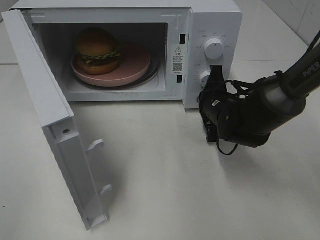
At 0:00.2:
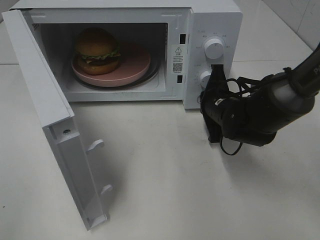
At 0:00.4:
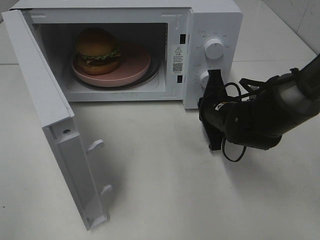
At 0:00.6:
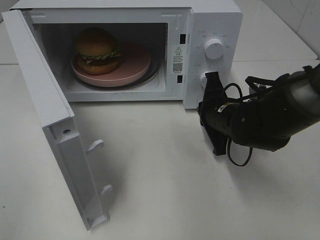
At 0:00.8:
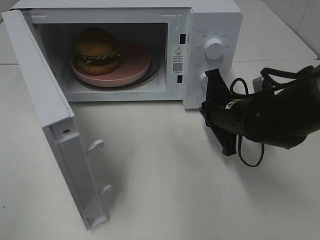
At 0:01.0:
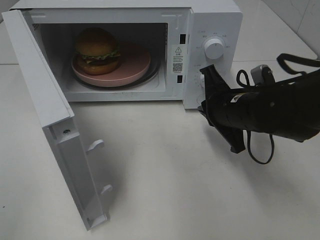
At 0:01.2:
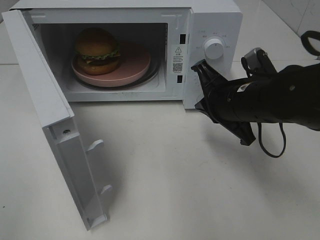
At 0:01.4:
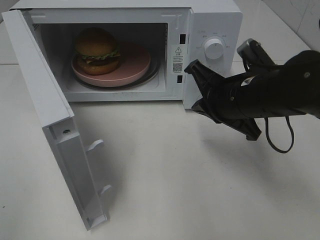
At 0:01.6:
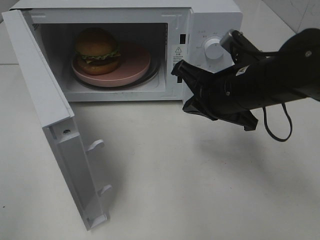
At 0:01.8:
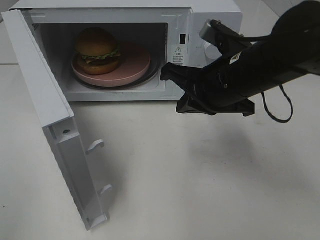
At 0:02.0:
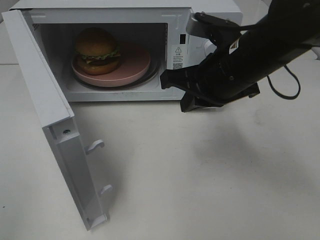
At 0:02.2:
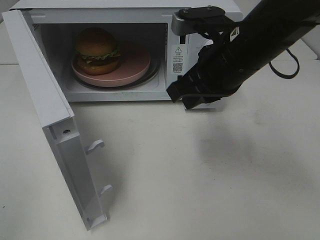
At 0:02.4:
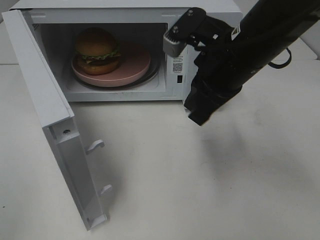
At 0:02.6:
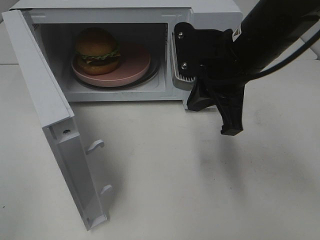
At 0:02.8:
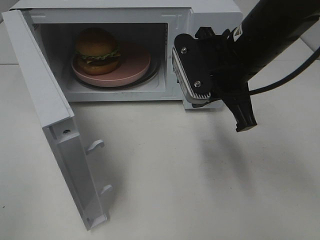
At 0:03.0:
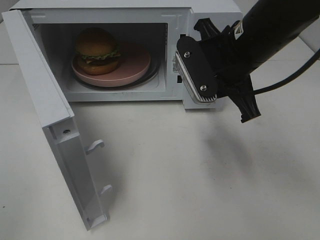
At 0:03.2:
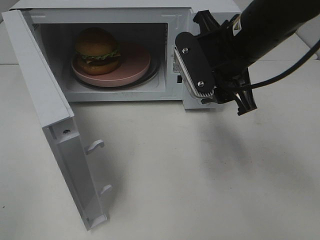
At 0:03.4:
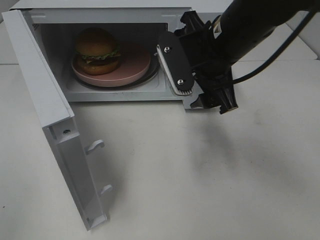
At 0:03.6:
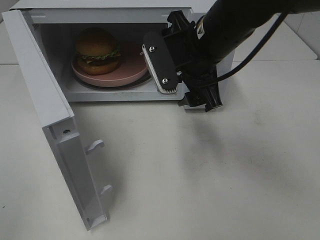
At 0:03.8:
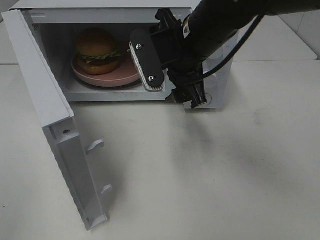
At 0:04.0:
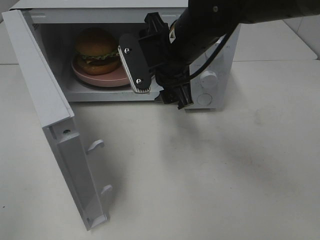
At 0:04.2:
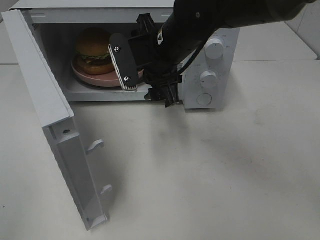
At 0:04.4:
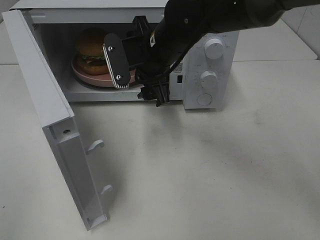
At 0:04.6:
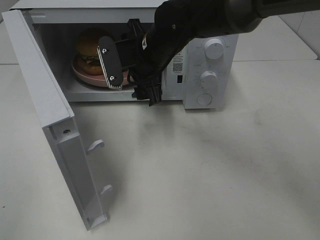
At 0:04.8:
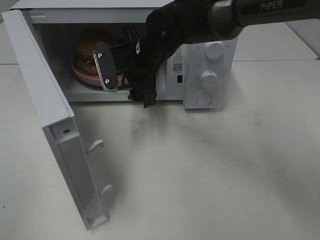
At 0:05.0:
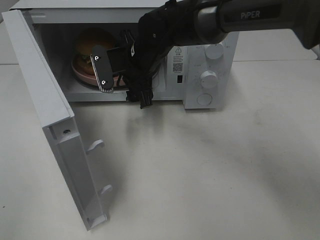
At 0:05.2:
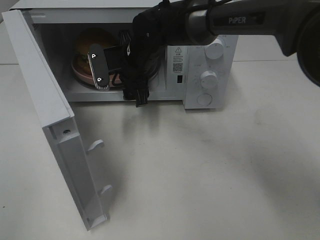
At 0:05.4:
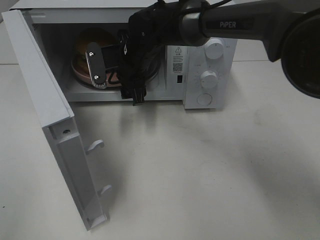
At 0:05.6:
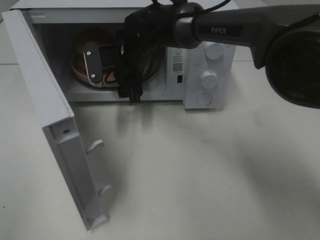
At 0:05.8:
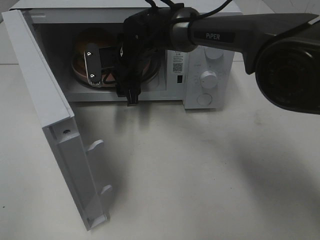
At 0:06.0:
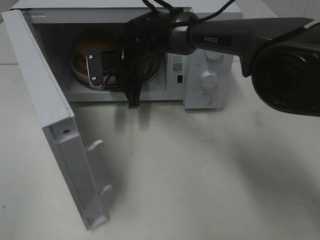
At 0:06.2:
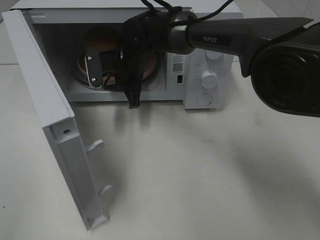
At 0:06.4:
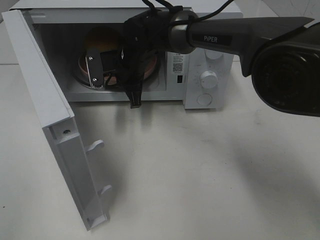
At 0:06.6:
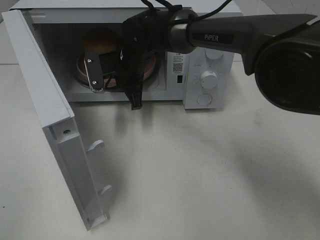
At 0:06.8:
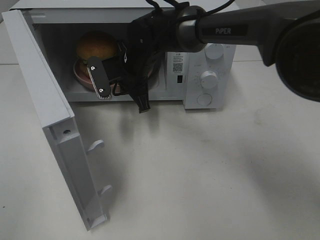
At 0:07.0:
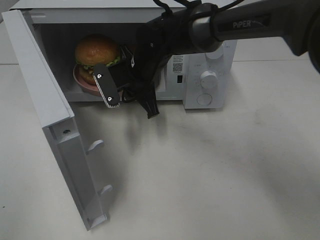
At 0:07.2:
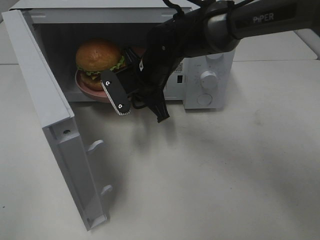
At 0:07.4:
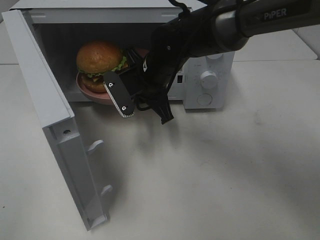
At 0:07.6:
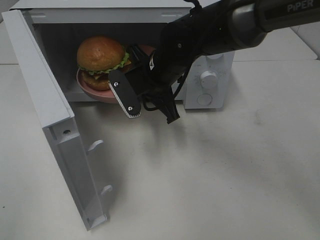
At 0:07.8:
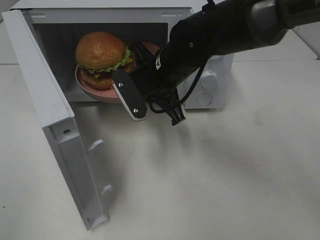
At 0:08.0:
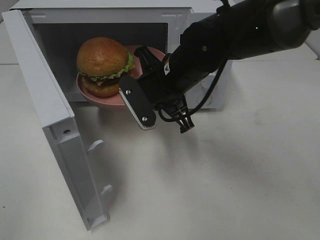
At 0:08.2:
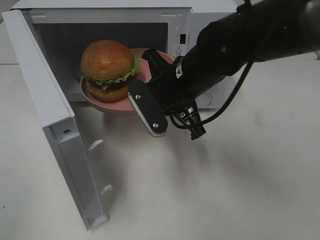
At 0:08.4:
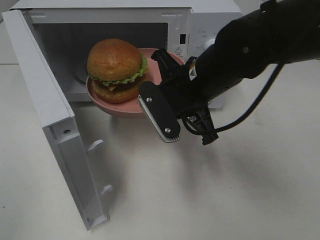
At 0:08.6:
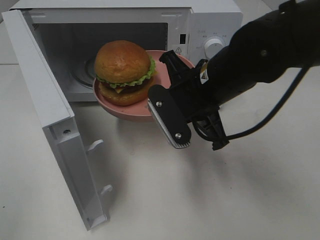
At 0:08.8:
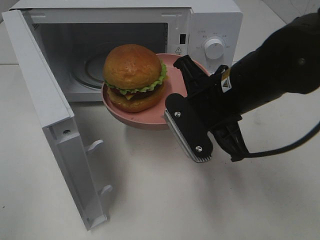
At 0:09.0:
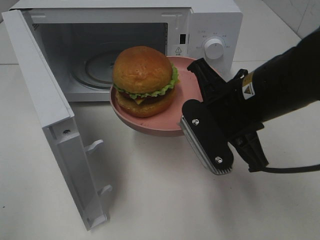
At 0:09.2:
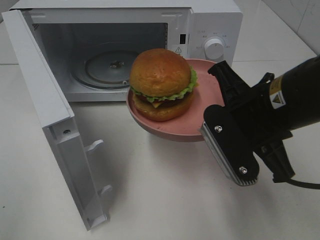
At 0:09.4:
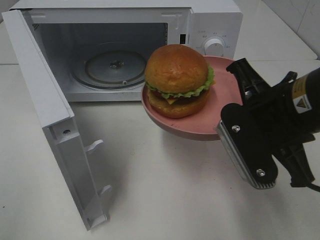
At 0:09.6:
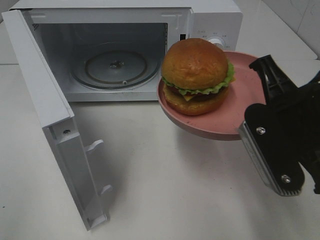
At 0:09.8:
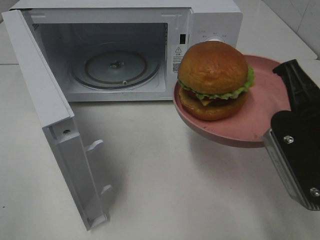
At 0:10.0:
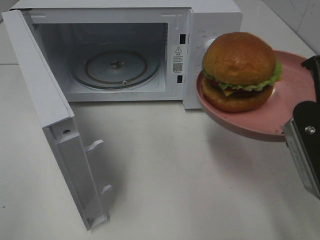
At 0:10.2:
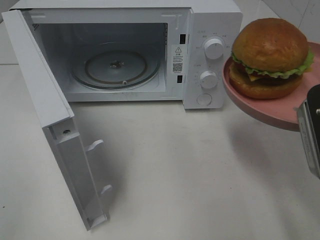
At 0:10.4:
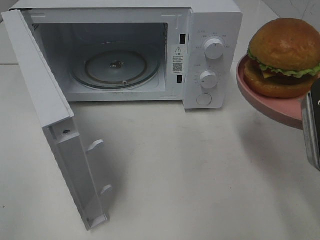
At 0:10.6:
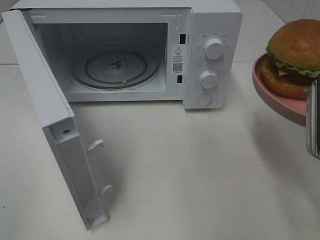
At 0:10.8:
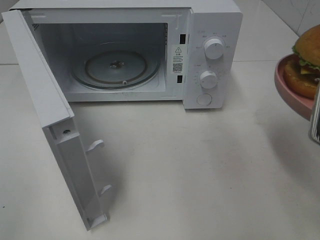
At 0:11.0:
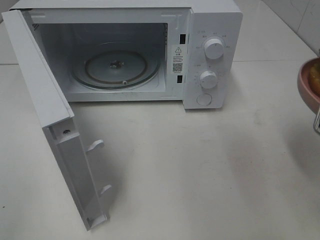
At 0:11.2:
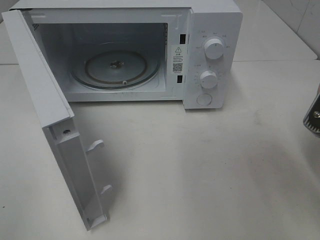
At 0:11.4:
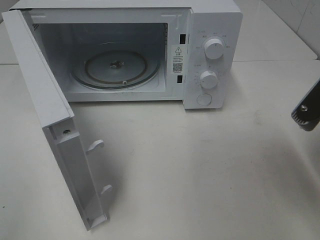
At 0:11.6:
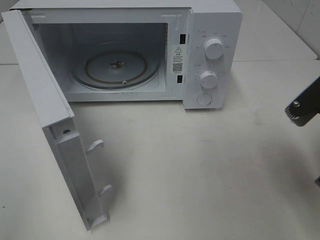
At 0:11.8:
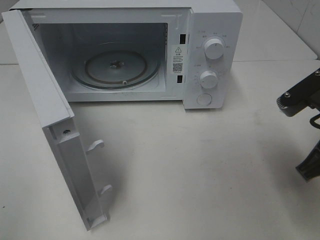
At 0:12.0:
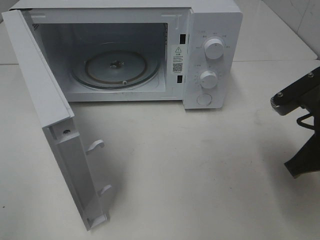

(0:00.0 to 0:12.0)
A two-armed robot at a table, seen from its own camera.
Task of the whole recording: Heat the burger.
Step, 0:00.6 - 0:06.2: Right hand: grab the plate with the hamburger.
0:00.0 - 0:01.6: The right gripper heads upward and backward, covering approximately 15 cm.
0:01.6 - 0:03.0: The right gripper heads upward, covering about 5 cm, and opens up.
0:03.0 - 0:04.4: The right gripper shifts roughly 15 cm to the left and forward, and opens up.
0:04.4 - 0:06.0: The right gripper goes roughly 10 cm forward, downward and to the left, and closes.
0:06.0 - 0:07.6: The right gripper heads backward and to the right, covering roughly 10 cm.
0:07.6 - 0:09.0: The right gripper moves backward and to the right, roughly 15 cm.
0:09.0 - 0:10.4: The right gripper goes roughly 15 cm to the right and backward.
0:10.4 - 0:12.0: The right gripper heads downward, covering about 5 cm.

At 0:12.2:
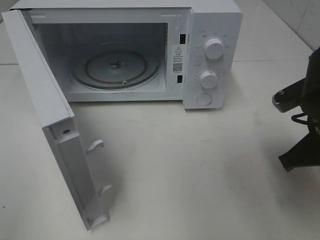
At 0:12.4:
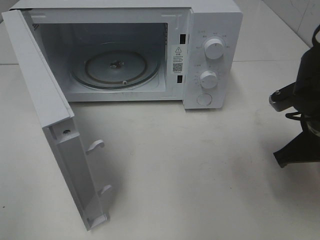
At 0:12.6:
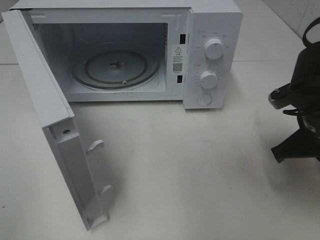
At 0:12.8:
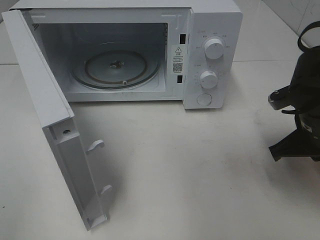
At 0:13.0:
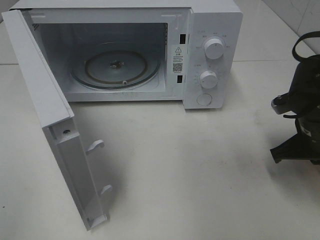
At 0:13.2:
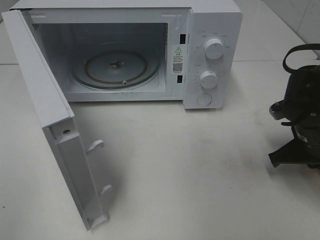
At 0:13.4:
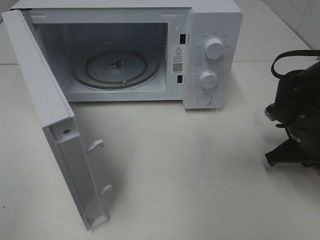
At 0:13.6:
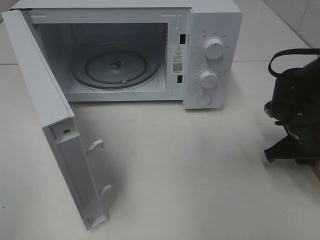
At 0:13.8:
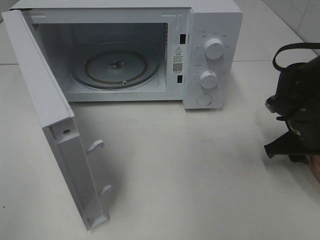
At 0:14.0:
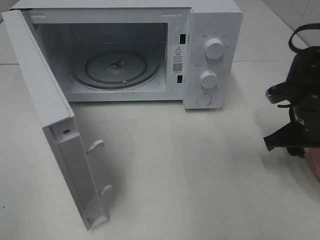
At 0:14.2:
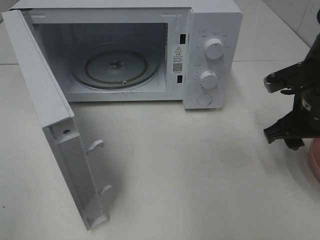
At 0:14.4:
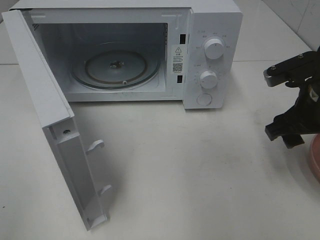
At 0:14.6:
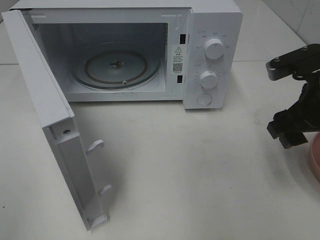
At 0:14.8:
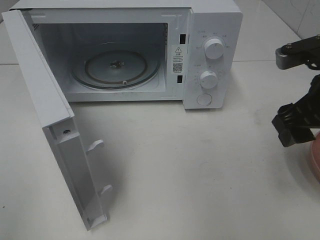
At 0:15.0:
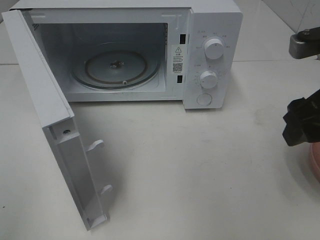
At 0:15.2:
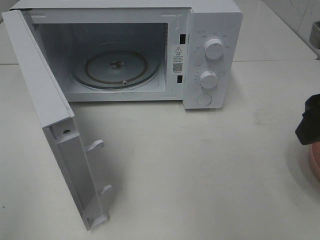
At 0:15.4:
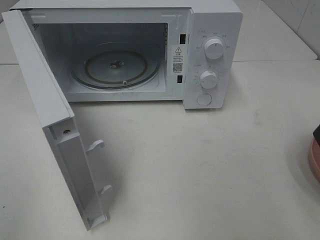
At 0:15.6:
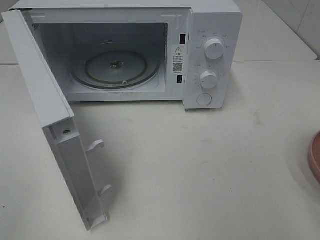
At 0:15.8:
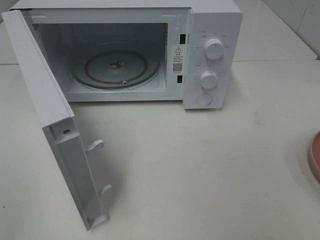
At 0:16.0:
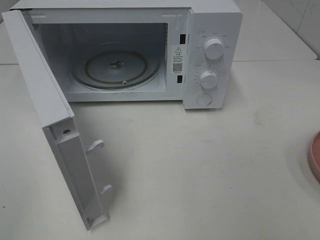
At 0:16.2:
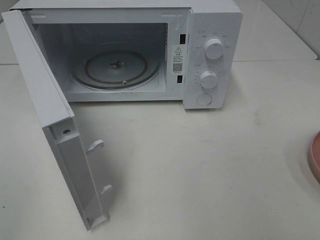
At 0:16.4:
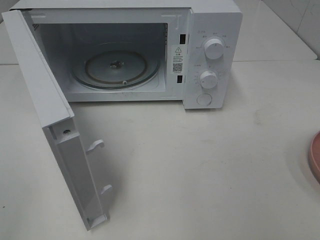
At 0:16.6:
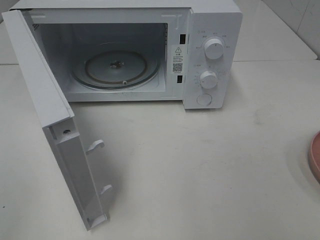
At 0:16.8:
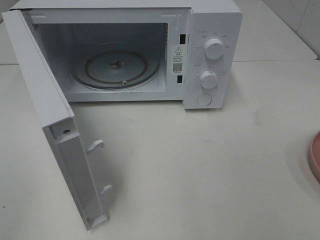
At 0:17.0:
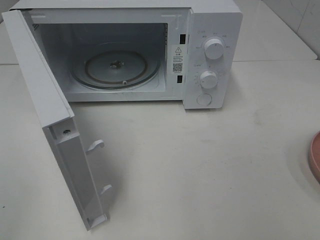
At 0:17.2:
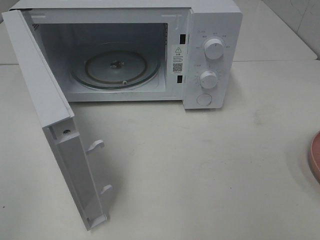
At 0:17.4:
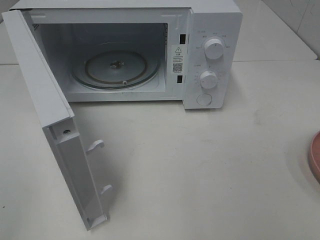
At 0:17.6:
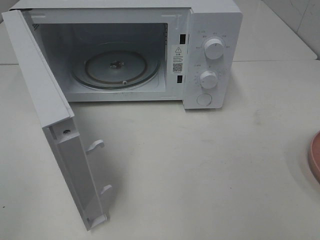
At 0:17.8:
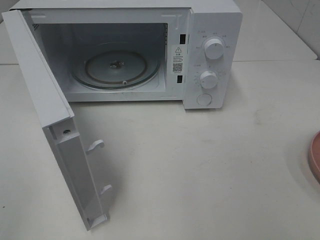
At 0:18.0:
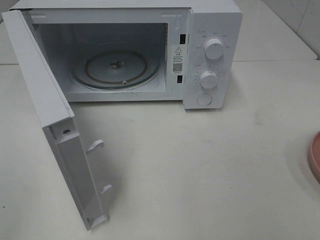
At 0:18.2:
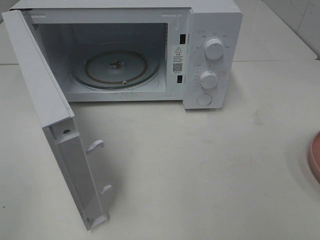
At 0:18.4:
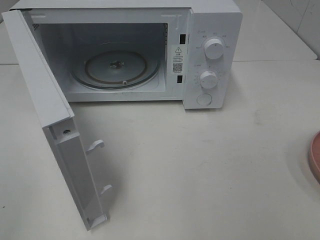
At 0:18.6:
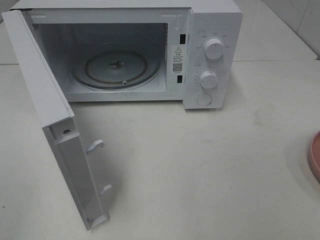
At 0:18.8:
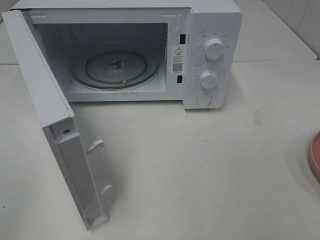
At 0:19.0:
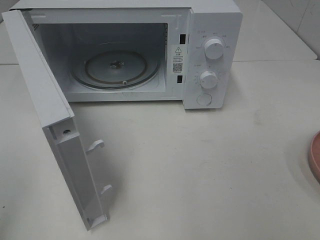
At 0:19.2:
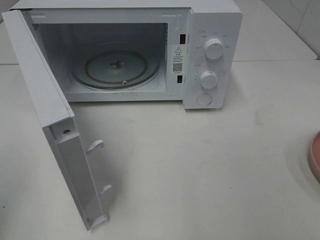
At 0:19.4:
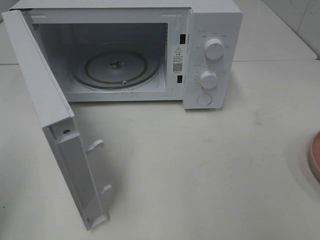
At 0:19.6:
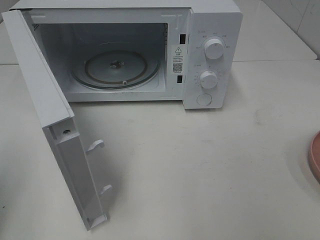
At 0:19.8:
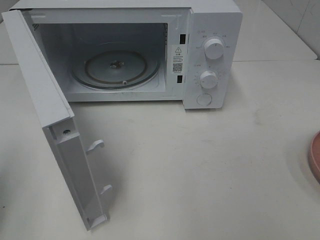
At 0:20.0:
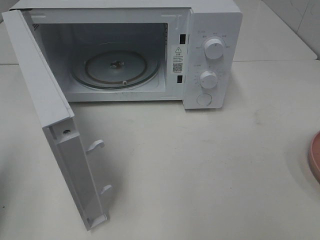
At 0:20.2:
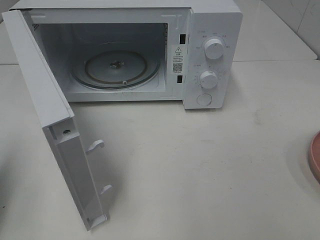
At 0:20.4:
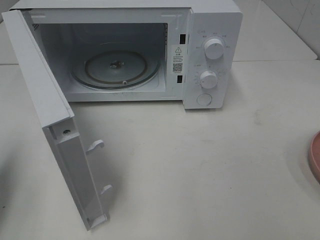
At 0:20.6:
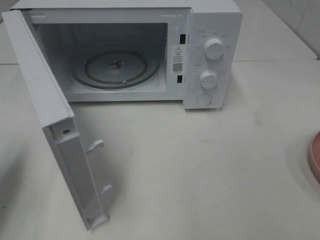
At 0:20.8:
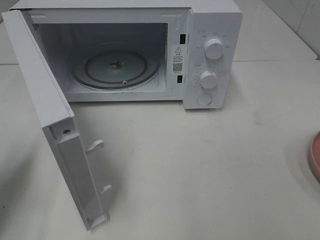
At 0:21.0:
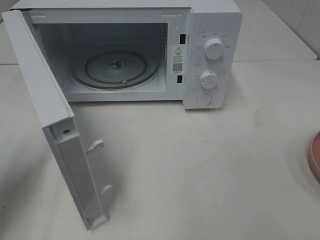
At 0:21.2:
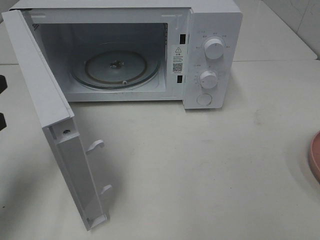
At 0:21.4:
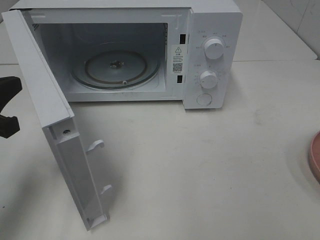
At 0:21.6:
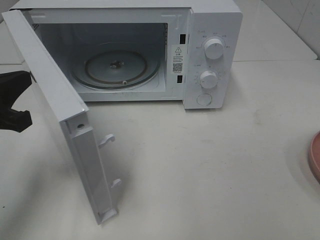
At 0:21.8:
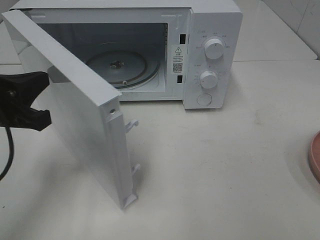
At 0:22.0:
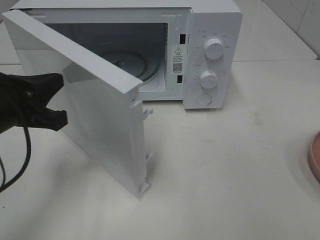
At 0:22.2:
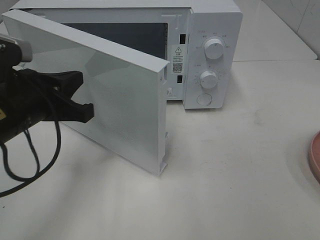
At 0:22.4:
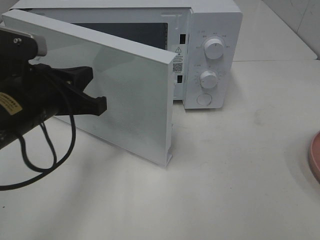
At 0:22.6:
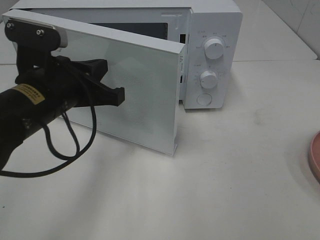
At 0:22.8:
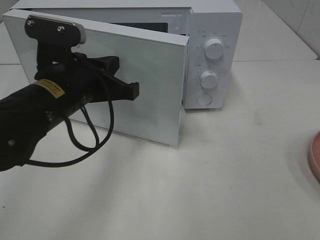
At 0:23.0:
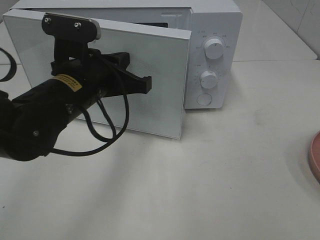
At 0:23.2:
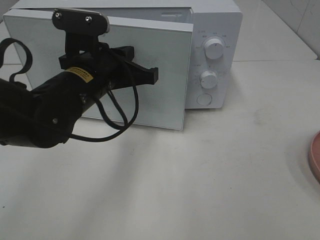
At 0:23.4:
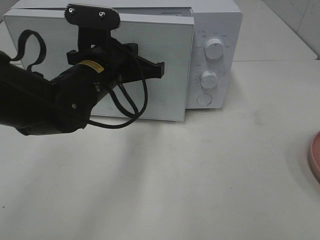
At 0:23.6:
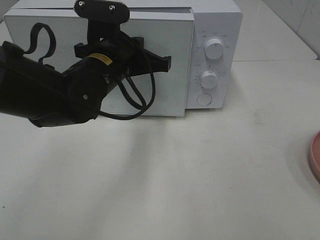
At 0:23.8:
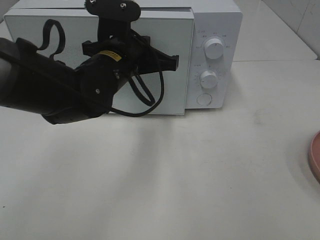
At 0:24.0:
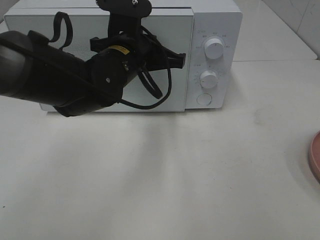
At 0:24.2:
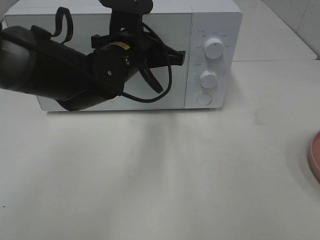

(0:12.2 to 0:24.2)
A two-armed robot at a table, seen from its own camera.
Task of the whole recording: Heat the burger.
Step, 0:12.2 - 0:14.2: Right hand: place the plate on the table.
0:12.2 - 0:13.8: The right gripper travels forward and downward by about 10 cm, and opens up.
0:13.8 - 0:15.2: The right gripper travels upward and backward by about 20 cm.
0:15.2 - 0:16.6: The right gripper travels backward by some 20 cm.
0:16.6 - 0:18.2: The two grippers keep their place.
0:19.8 - 0:21.2: The left gripper goes about 10 cm forward.
0:21.2 - 0:22.6: The left gripper shifts about 15 cm to the right.
0:22.6 - 0:24.2: The left gripper moves forward and to the right, about 15 cm.
